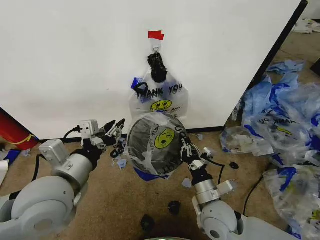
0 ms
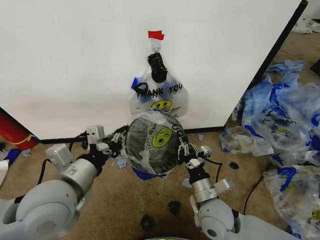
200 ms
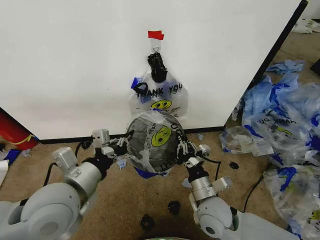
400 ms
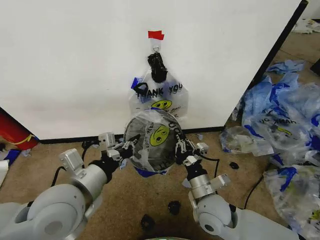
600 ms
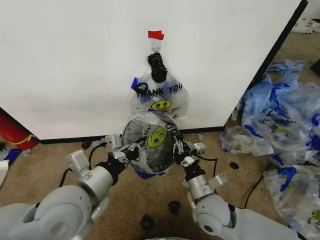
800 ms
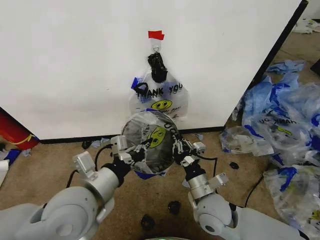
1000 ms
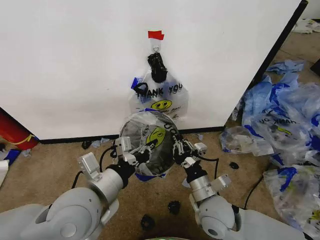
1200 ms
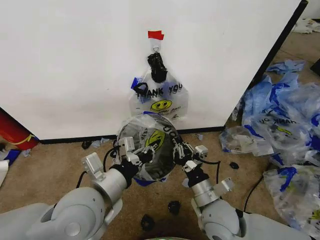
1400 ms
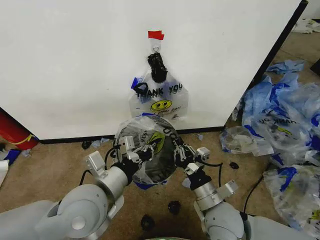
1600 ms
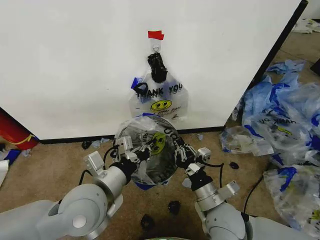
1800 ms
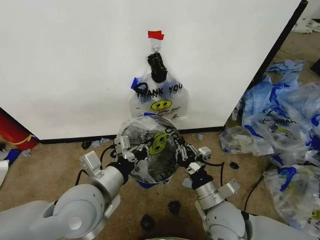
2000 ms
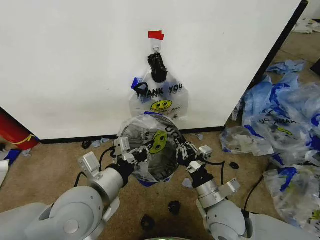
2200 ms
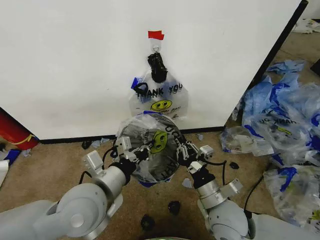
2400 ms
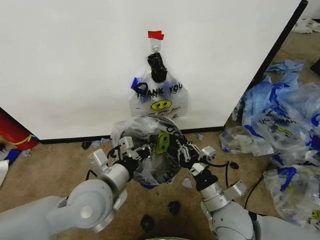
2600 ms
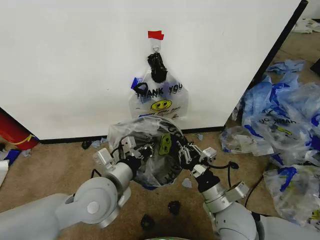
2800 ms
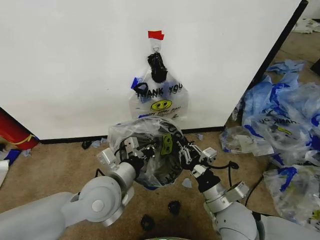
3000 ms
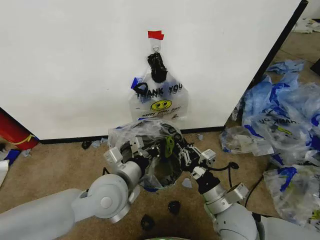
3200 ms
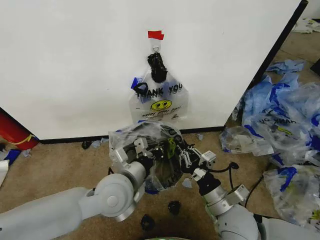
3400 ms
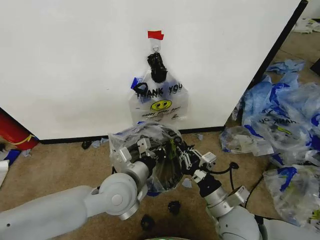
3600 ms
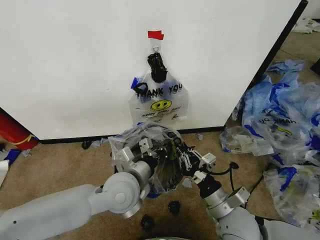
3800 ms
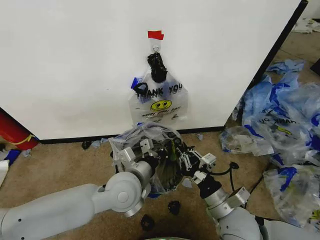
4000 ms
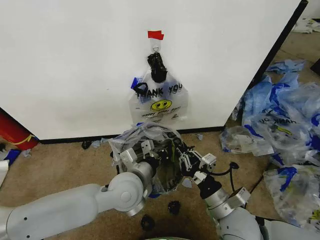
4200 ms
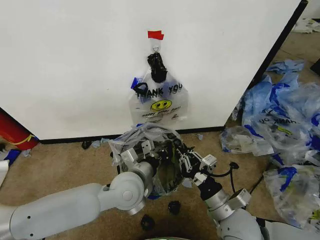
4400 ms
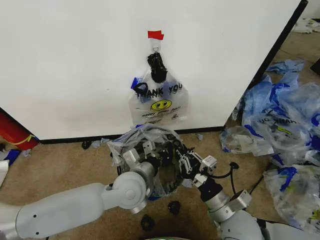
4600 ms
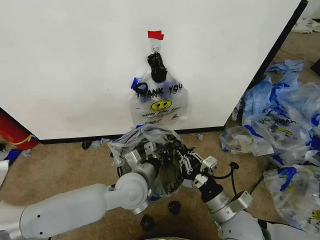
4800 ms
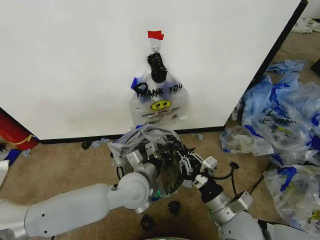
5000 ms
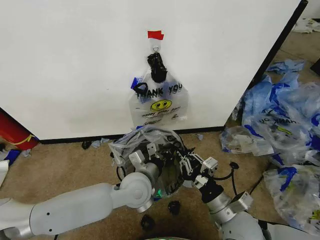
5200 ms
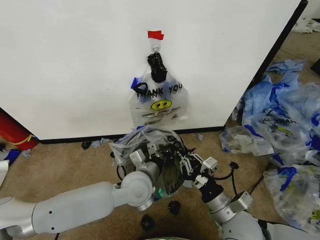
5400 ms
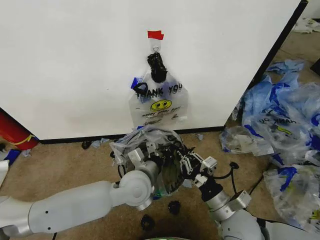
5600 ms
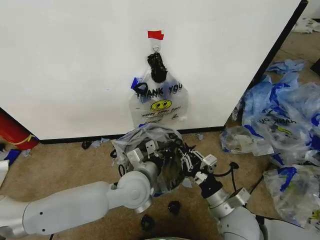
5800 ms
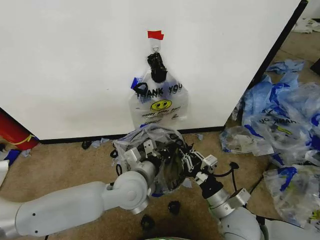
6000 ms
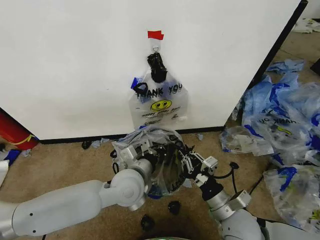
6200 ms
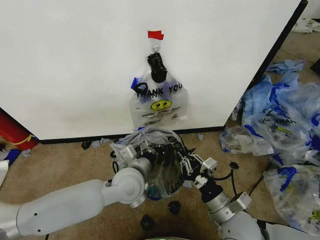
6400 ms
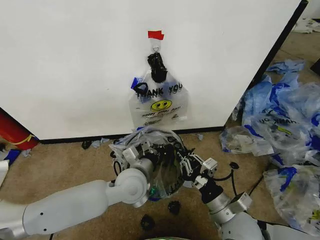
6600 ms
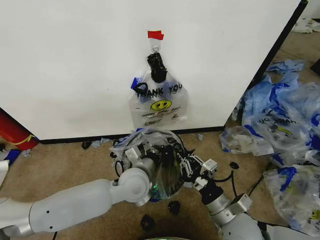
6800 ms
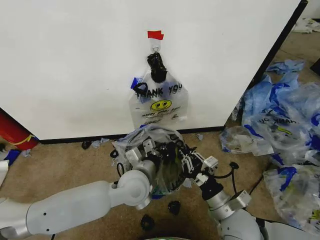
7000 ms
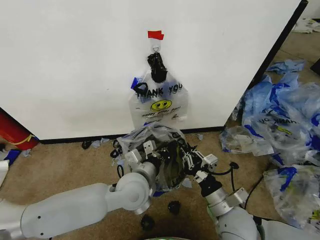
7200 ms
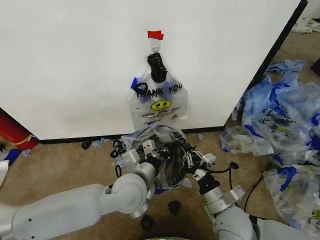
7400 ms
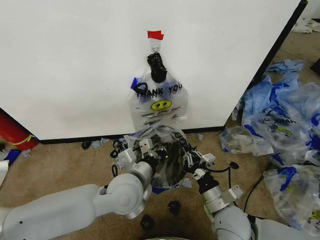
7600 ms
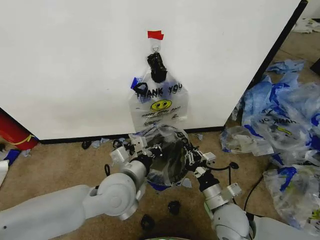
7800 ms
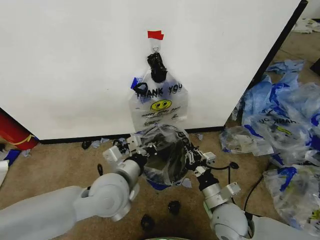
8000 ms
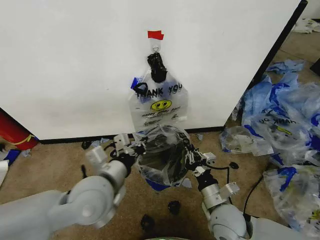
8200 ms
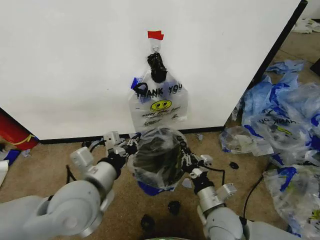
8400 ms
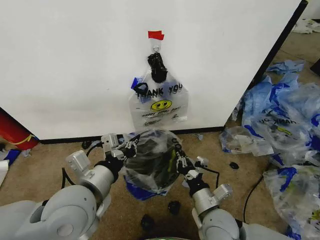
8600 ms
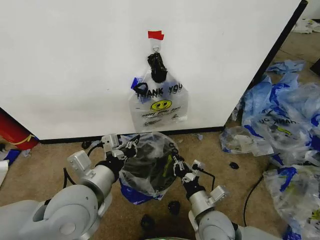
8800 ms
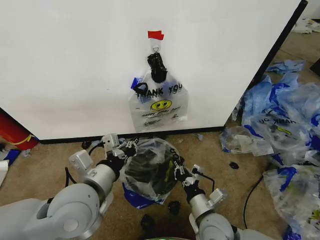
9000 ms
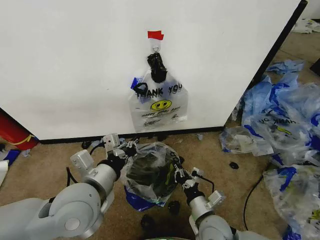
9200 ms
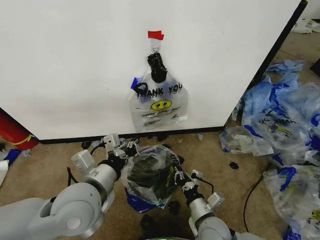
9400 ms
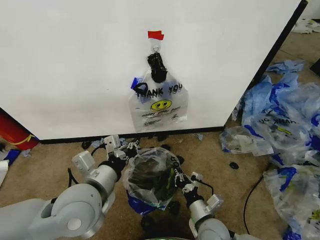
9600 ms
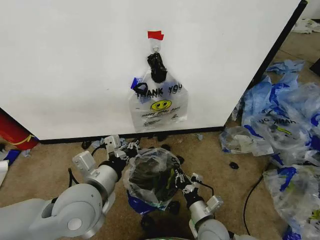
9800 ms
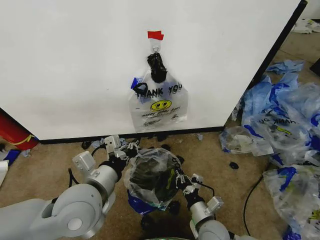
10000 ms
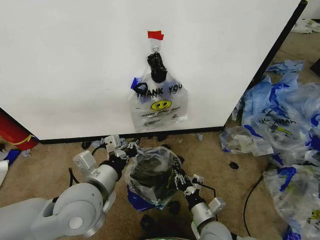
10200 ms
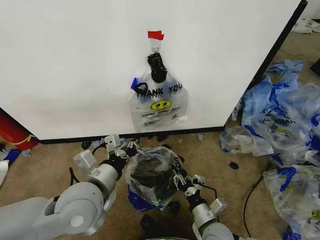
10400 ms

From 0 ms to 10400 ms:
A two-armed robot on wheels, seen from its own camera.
Task of the whole recording: Pick up the garbage bag from the wall and place it over the trash bin.
From 0 ms to 1400 ms: The left gripper shifts roughly 5 cm to the right.
From 1400 ms to 3000 ms: The left gripper ends up some 5 cm from where it was.
From 3000 ms to 4400 ms: The left gripper ends up roughly 5 cm from where it was.
From 4400 ms to 7400 ms: The grippers move only a little.
From 7400 ms to 9000 ms: The left gripper moves to the left, upward and backward, roughly 15 cm. Meanwhile the right gripper moves roughly 5 cm.
From 9000 ms to 10400 ms: The right gripper shifts by approximately 5 cm, and opens.

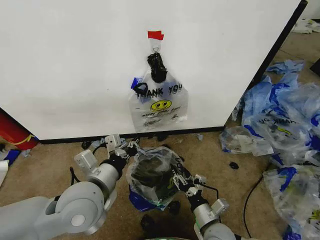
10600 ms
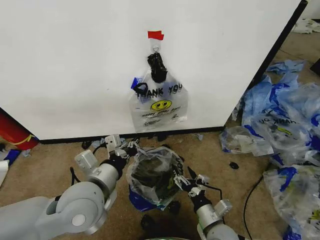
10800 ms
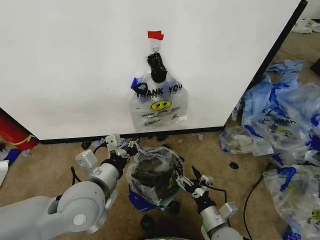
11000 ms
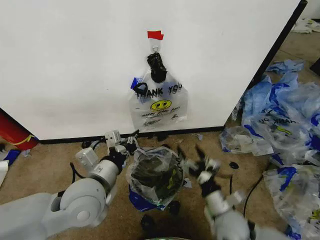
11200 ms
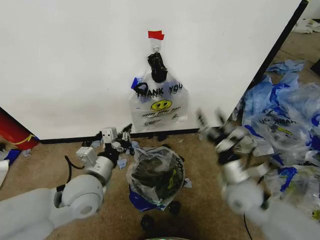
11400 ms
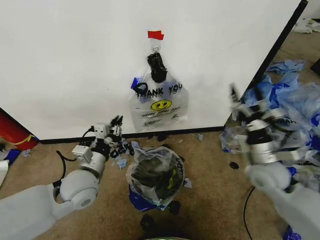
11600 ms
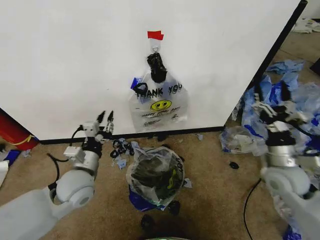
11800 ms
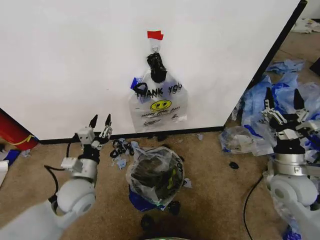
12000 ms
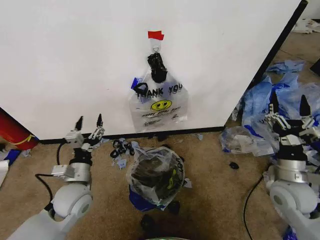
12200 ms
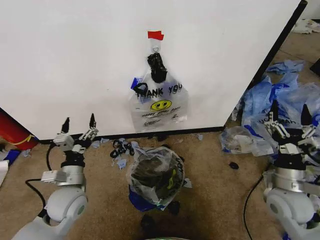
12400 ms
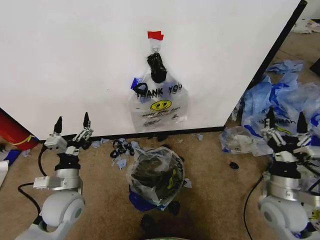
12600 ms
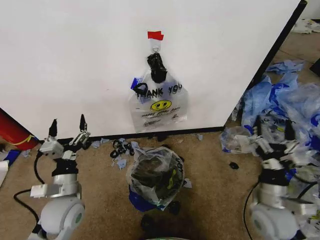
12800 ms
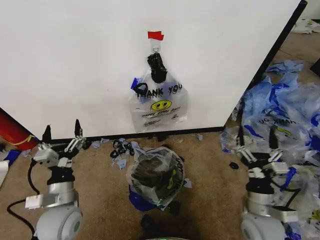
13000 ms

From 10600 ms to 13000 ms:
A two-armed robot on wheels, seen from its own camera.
Task of the whole recording: Pick up the garbage bag from the wall and place it over the trash bin.
From 10600 ms to 11800 ms: The left gripper moves downward, forward and to the left, approximately 10 cm, and opens its fingers. The right gripper heads to the right, upward and forward, covering approximately 25 cm, and opens up.
From 11800 ms to 13000 ms: The right gripper moves downward, backward and to the left, roughly 15 cm, while the left gripper is displaced backward by roughly 10 cm, and opens its fingers.

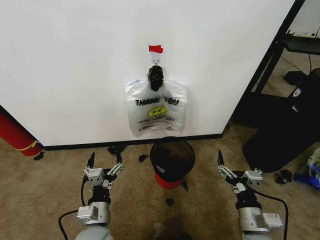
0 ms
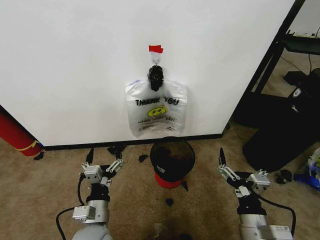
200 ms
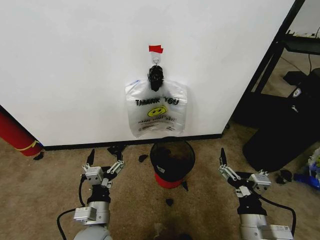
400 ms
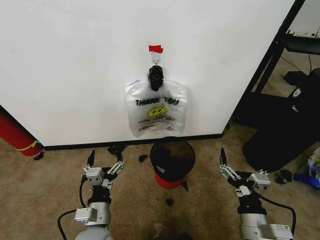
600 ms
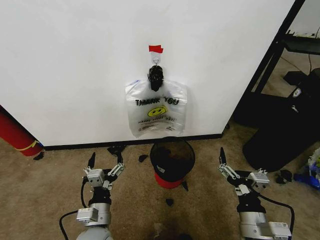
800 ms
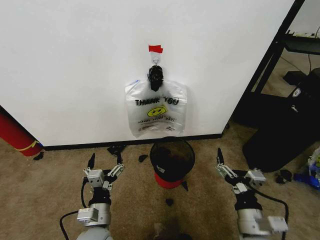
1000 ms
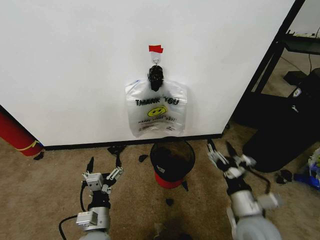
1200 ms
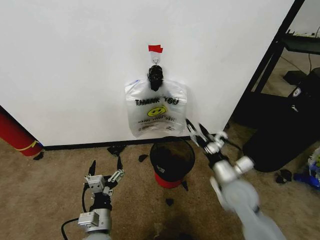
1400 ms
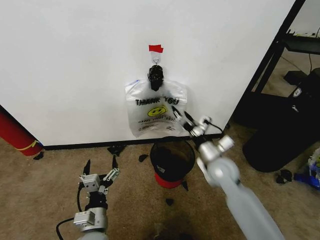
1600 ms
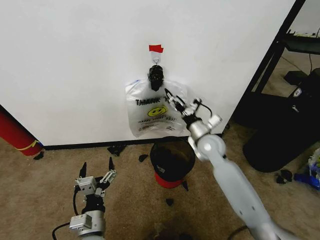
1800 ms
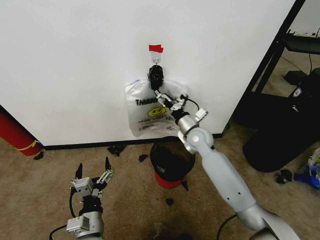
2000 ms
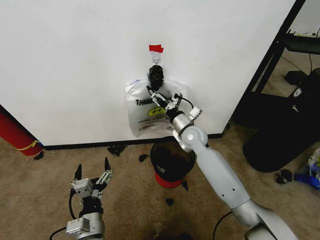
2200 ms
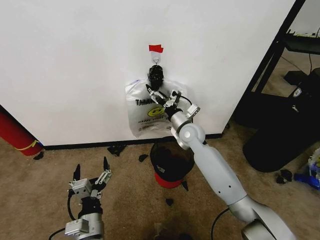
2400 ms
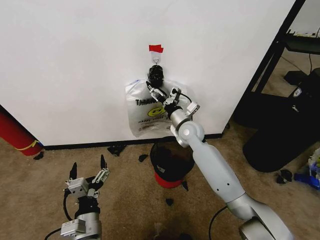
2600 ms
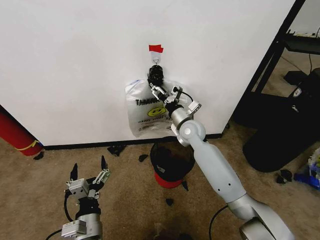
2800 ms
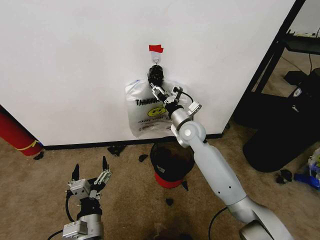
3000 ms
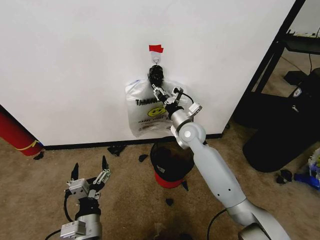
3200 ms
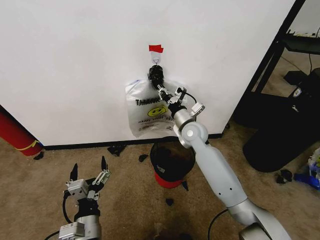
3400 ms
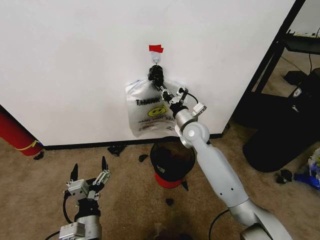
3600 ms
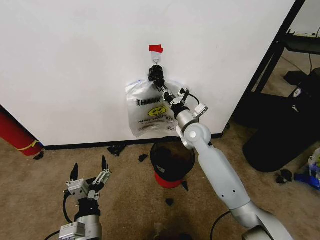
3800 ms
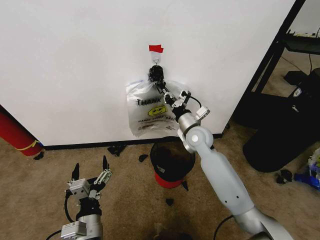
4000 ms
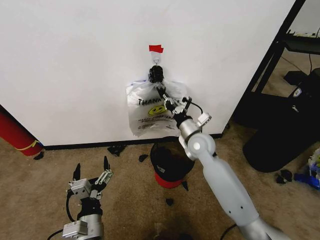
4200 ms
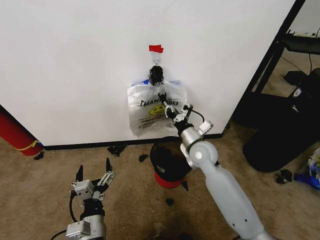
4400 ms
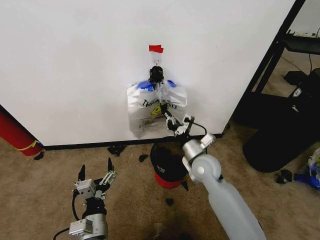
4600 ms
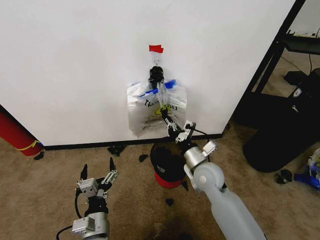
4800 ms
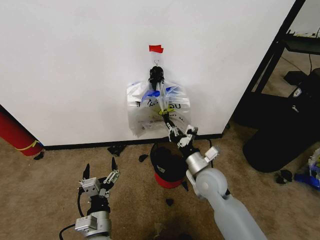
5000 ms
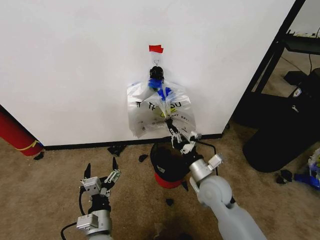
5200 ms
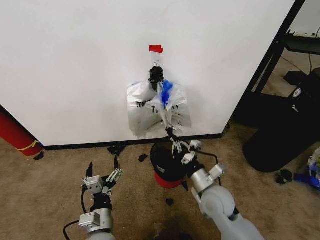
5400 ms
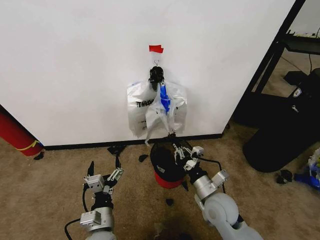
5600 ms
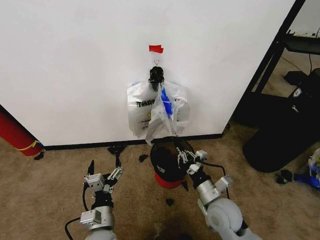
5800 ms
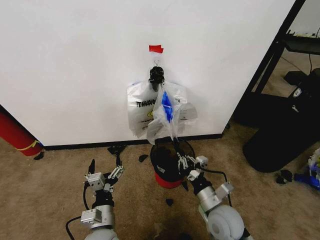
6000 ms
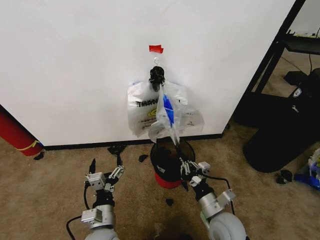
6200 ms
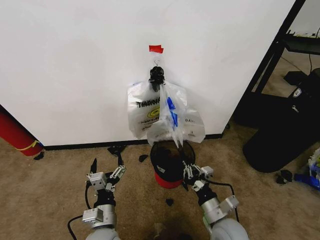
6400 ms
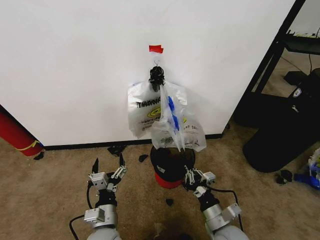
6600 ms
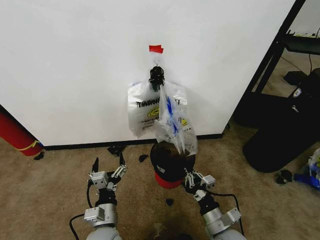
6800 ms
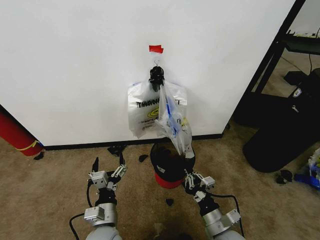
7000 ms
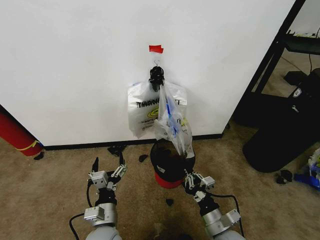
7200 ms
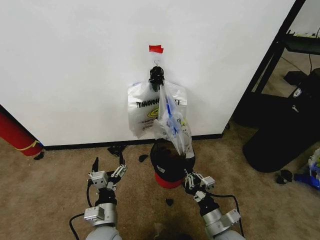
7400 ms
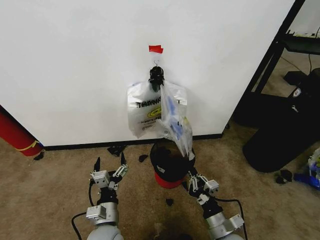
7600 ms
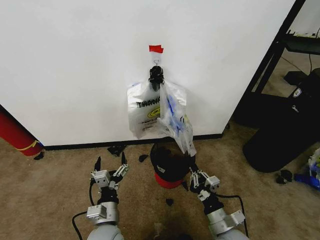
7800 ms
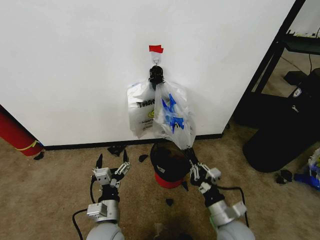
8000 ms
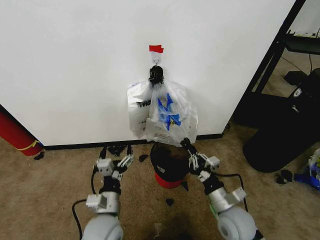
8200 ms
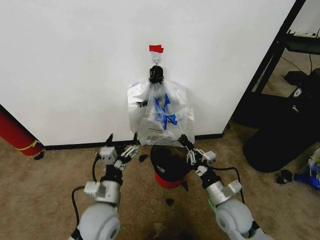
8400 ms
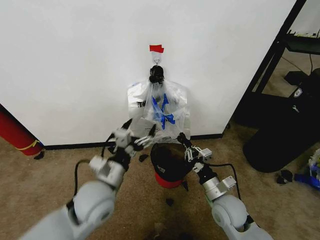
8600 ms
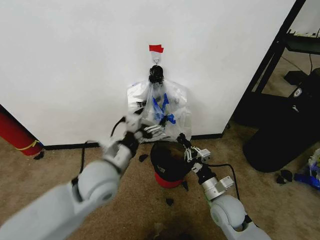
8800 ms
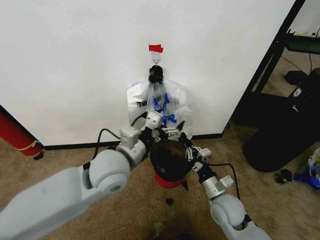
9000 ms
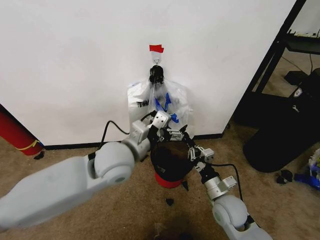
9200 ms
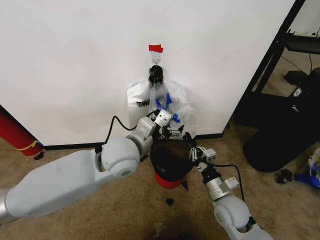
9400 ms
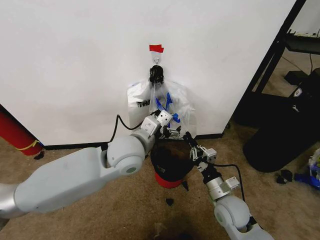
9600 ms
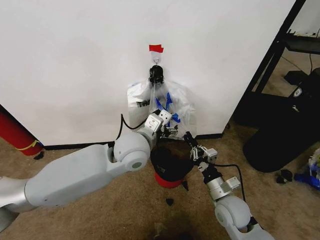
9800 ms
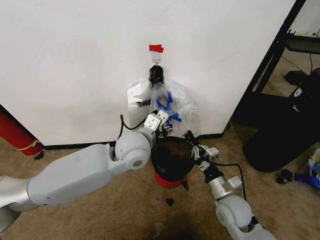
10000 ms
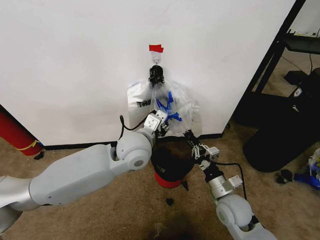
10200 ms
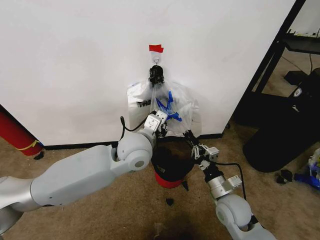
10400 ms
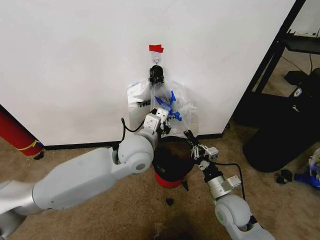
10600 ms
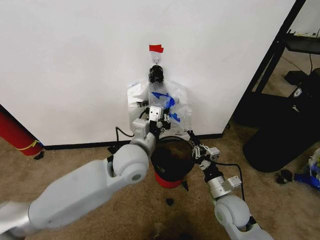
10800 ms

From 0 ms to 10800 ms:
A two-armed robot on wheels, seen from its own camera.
Task of the whole recording: Pick up the garbage bag from the wall and place it over the trash bin.
From 1600 ms to 3000 ms: The right gripper heads forward and to the left, covering about 15 cm, and closes up.
From 3000 ms to 4600 ms: The right gripper shifts some 10 cm backward, and closes.
From 4600 ms to 6200 ms: The right gripper shifts some 20 cm backward and downward.
From 6200 ms to 7800 ms: The right gripper shifts by some 5 cm.
From 7800 ms to 9200 ms: The left gripper moves upward and forward, roughly 25 cm, while the right gripper goes approximately 10 cm forward.
From 9200 ms to 10800 ms: The left gripper closes up.
